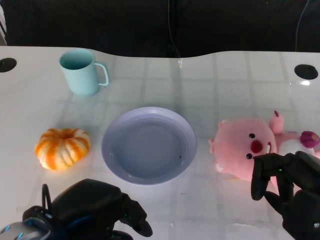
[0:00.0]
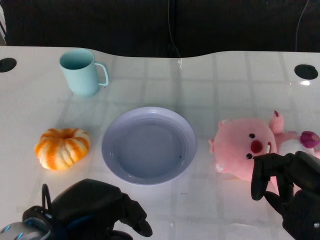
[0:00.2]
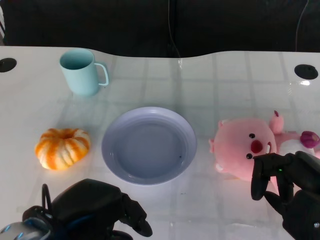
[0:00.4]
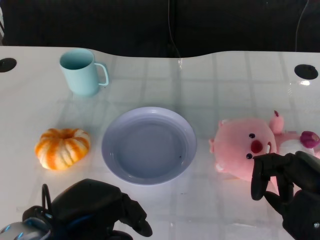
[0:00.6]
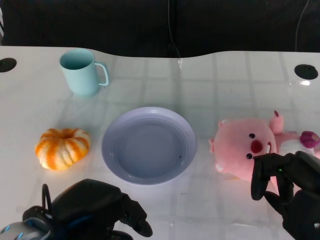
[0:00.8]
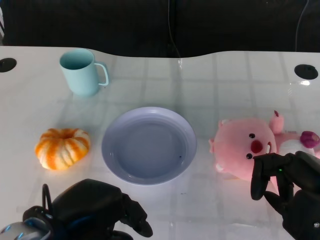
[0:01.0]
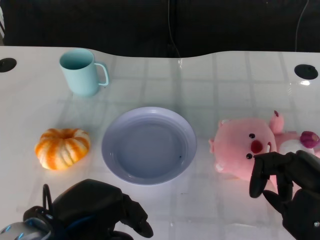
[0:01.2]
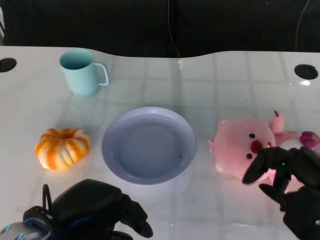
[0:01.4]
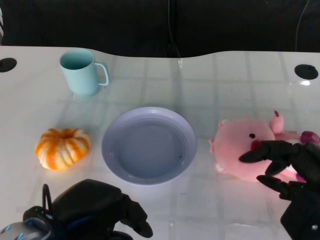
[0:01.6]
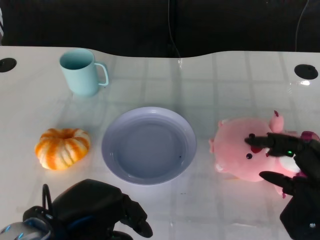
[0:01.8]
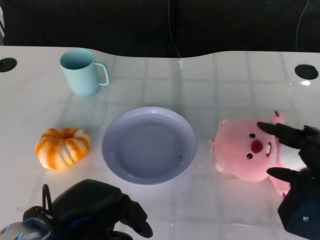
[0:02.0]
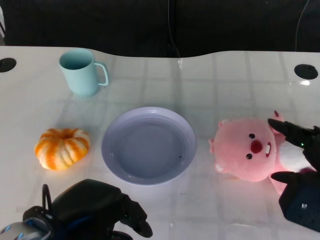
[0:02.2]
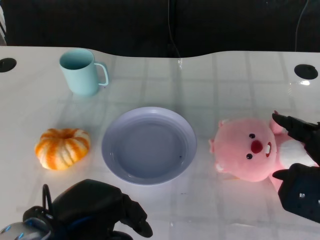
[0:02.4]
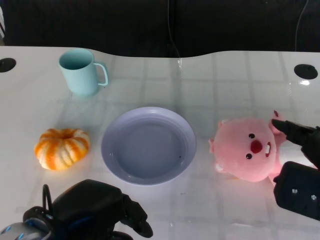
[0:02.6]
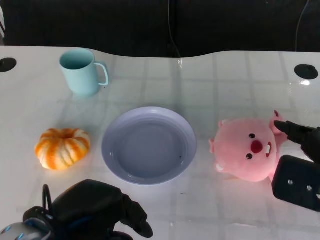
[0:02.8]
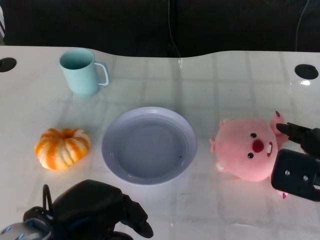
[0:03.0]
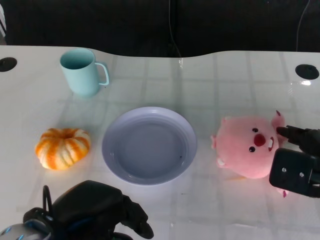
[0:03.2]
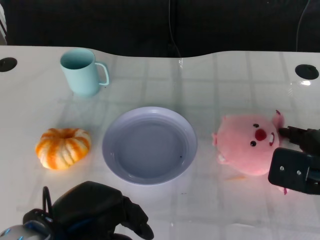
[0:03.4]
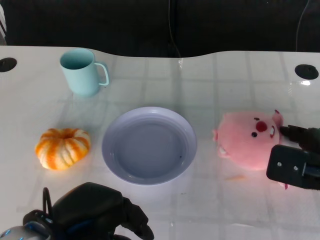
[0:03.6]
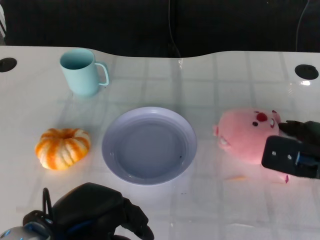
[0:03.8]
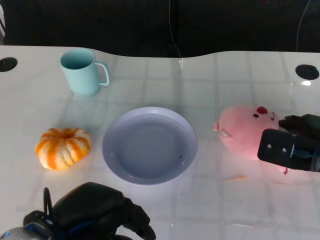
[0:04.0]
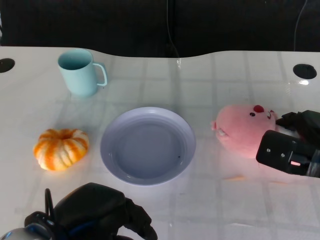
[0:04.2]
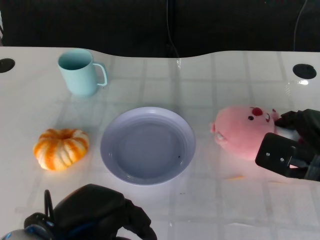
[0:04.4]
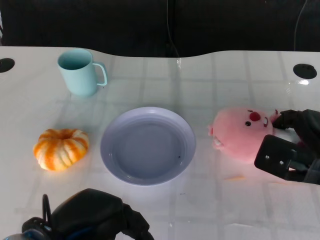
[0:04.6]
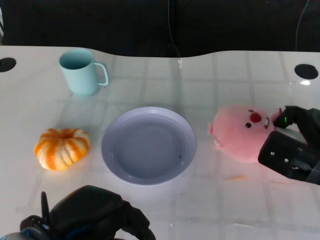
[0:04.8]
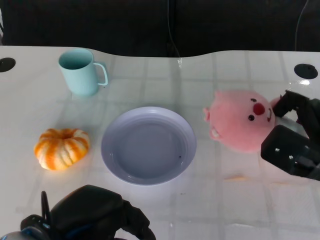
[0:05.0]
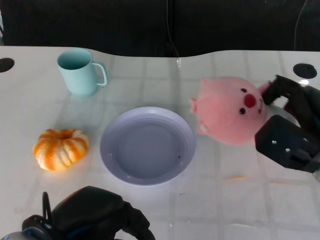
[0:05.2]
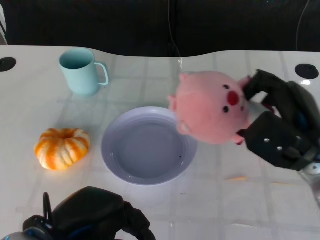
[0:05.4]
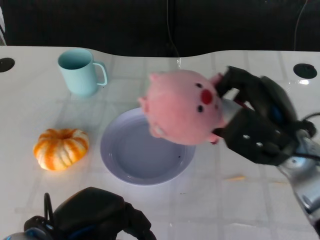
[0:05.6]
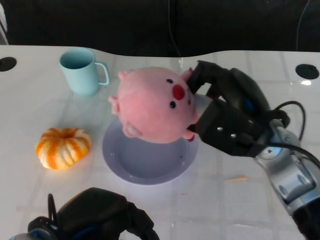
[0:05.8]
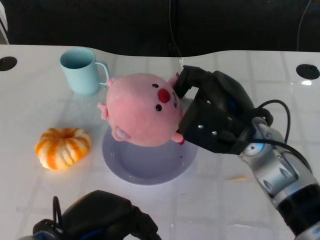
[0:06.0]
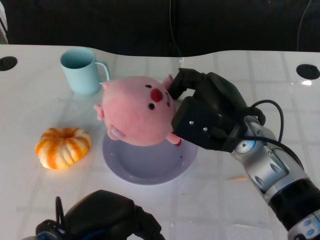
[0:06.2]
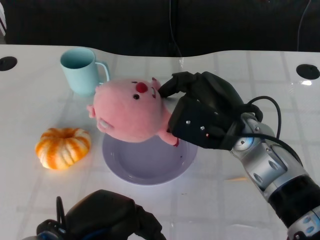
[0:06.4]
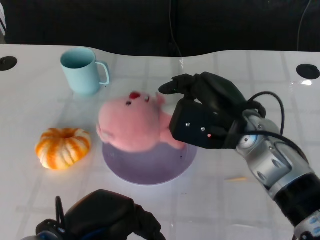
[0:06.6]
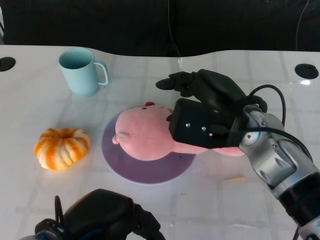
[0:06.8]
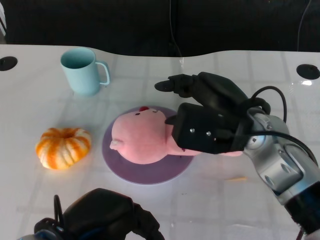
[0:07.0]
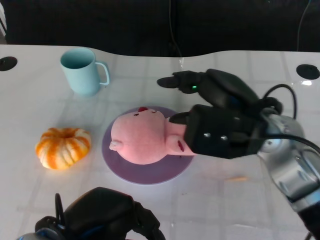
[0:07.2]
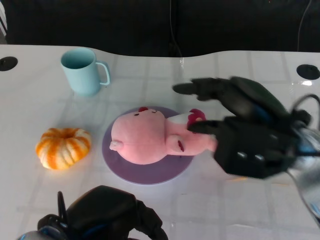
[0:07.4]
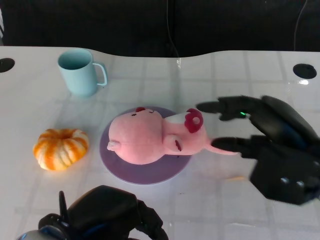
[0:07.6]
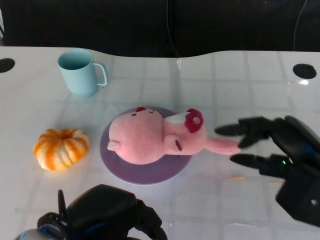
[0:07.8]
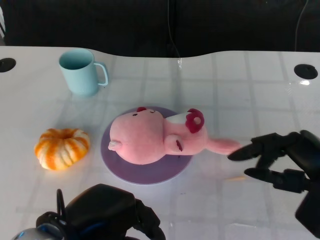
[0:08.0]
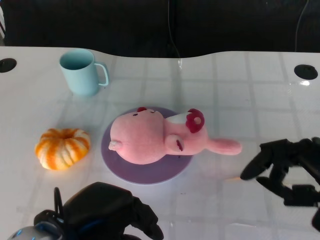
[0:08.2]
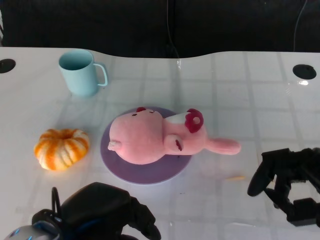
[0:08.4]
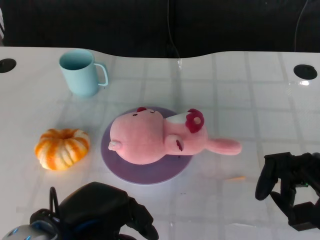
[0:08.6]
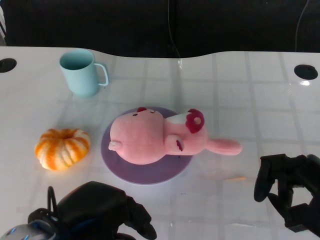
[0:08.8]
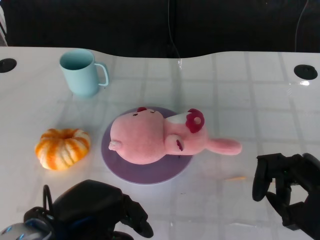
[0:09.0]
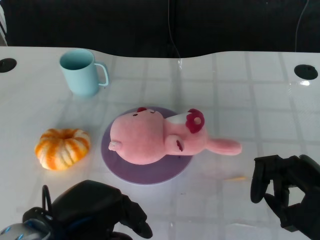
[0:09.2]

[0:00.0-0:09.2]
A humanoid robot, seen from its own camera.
Task of the whole recording: Pick up the doll on the other side of the plate and place it into the plate.
Step, 0:01.2 to 0:05.2: Grasp the pink doll with the right gripper.
Step, 0:05.4 to 0:07.2: Place the pink doll into the plate with the right gripper.
0:03.0 to 0:04.6: The right hand shifts some 10 cm downward and forward.
0:04.6 to 0:06.2: The right hand is displaced to the left and upward by roughly 15 cm.
0:06.2 to 0:07.6: The right hand is displaced to the right and backward by some 10 cm.
0:07.6 to 0:09.2: The right hand goes about 5 cm backward.

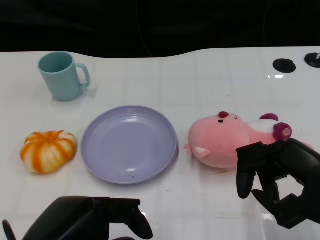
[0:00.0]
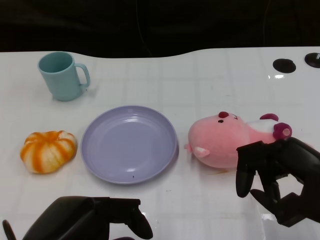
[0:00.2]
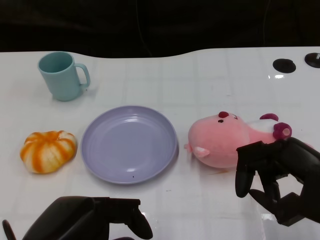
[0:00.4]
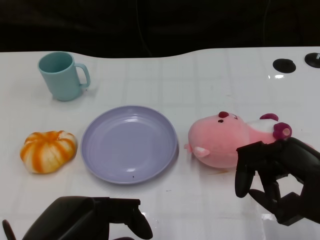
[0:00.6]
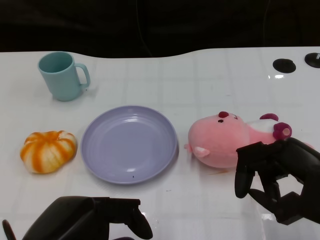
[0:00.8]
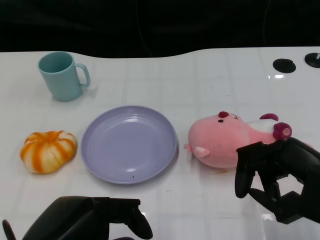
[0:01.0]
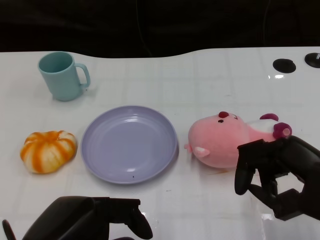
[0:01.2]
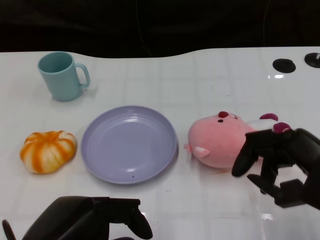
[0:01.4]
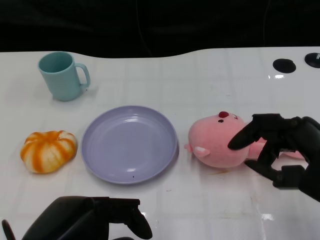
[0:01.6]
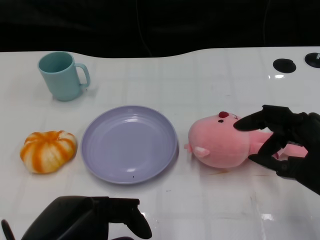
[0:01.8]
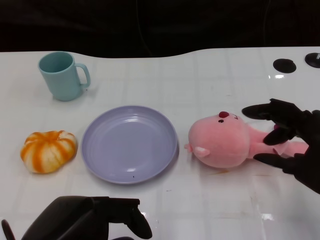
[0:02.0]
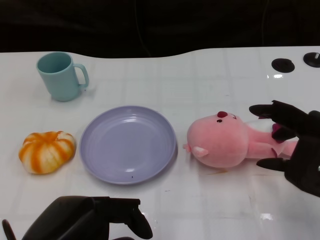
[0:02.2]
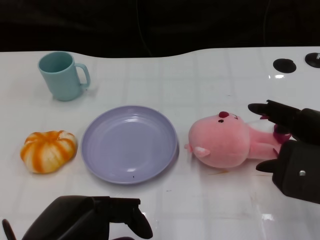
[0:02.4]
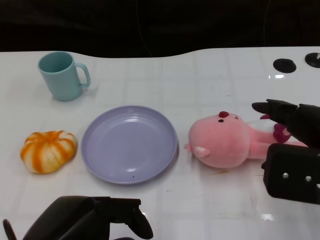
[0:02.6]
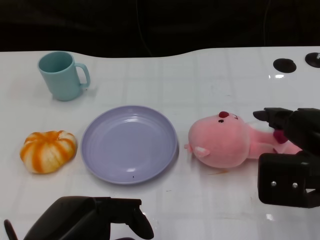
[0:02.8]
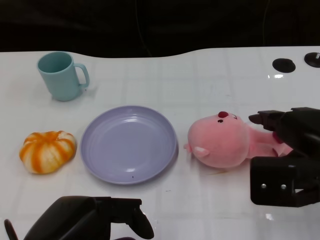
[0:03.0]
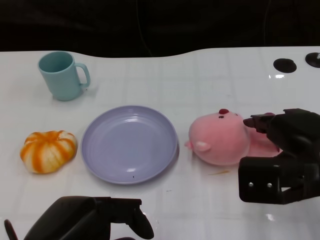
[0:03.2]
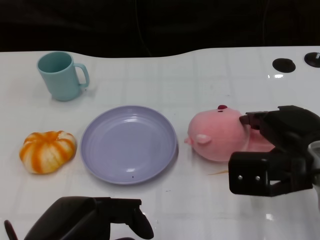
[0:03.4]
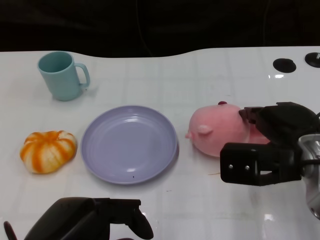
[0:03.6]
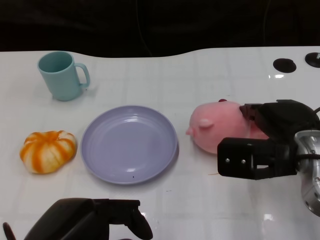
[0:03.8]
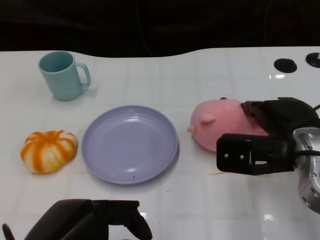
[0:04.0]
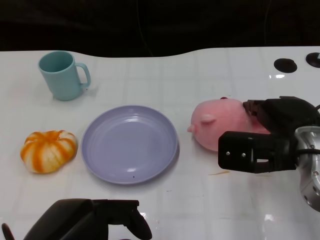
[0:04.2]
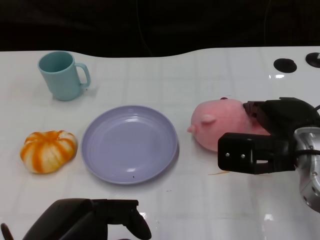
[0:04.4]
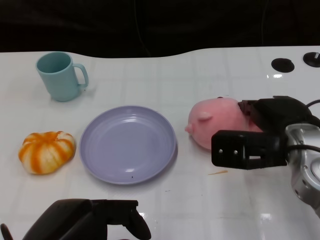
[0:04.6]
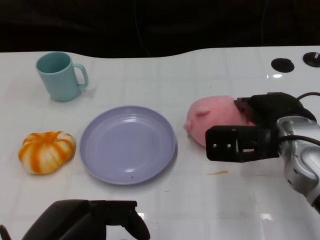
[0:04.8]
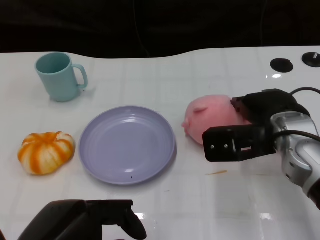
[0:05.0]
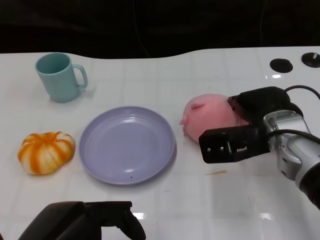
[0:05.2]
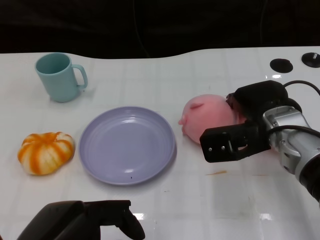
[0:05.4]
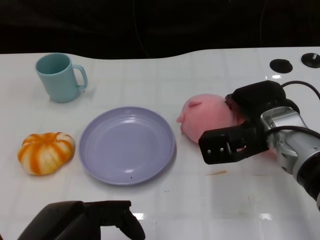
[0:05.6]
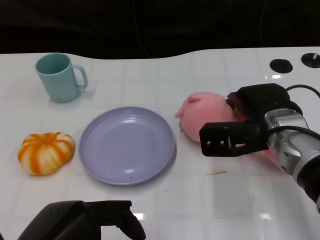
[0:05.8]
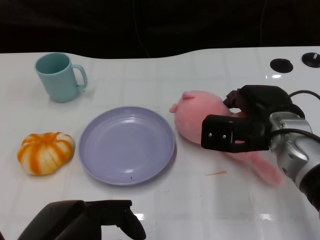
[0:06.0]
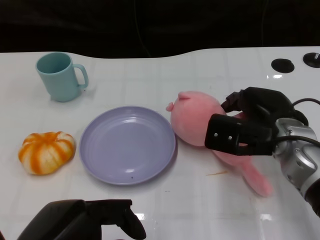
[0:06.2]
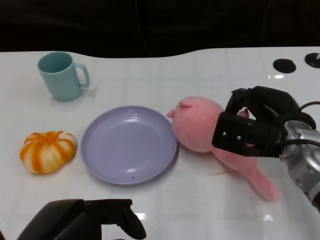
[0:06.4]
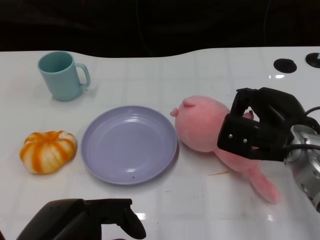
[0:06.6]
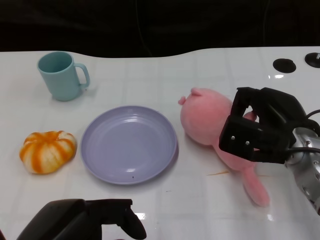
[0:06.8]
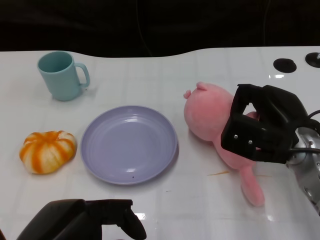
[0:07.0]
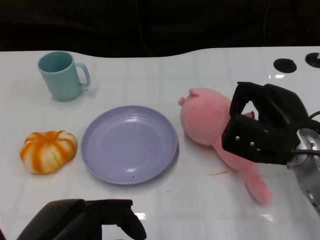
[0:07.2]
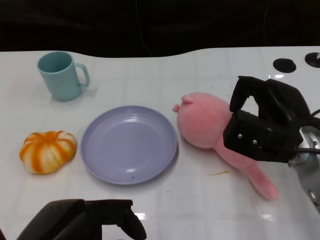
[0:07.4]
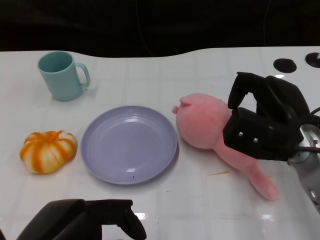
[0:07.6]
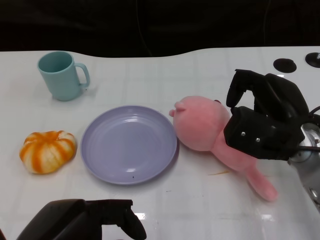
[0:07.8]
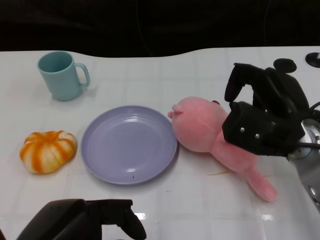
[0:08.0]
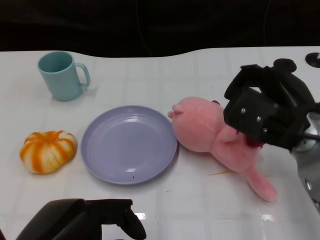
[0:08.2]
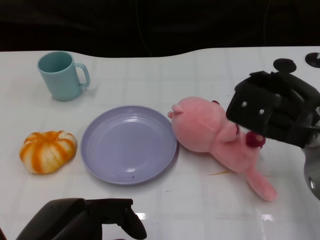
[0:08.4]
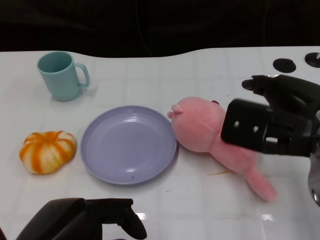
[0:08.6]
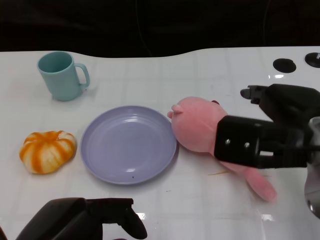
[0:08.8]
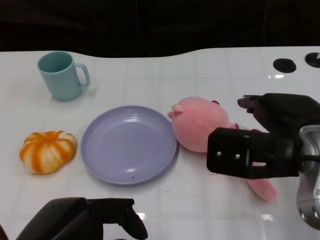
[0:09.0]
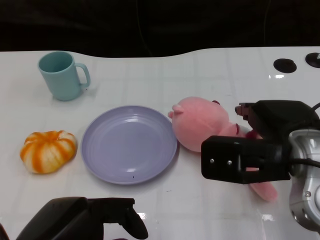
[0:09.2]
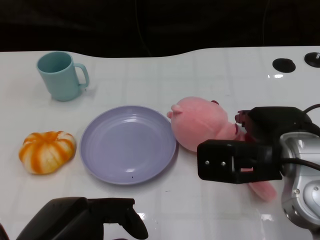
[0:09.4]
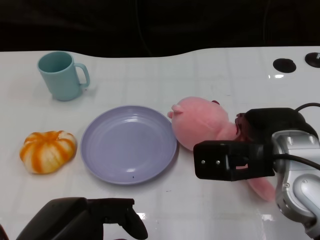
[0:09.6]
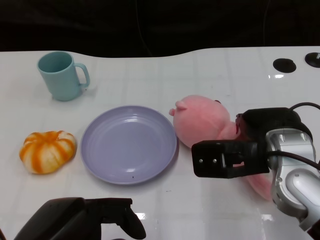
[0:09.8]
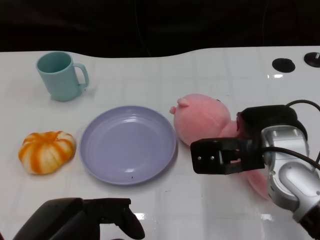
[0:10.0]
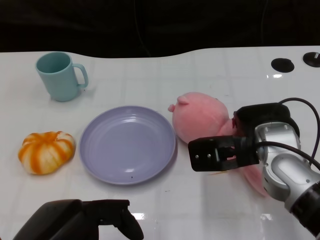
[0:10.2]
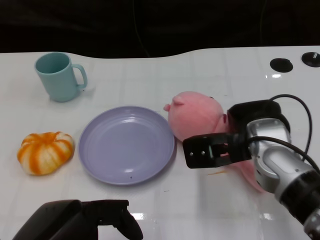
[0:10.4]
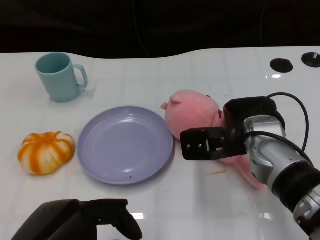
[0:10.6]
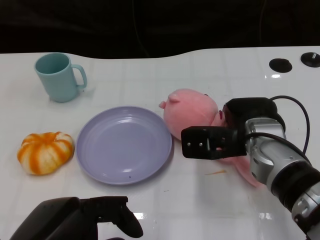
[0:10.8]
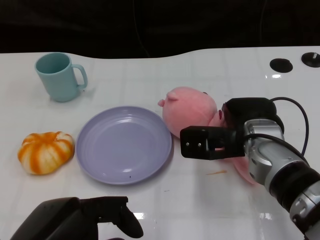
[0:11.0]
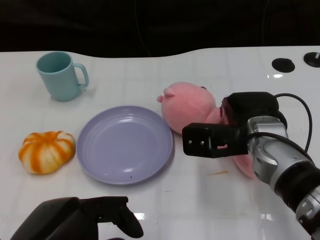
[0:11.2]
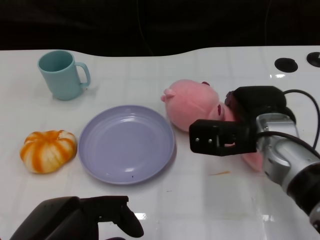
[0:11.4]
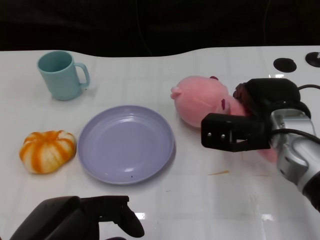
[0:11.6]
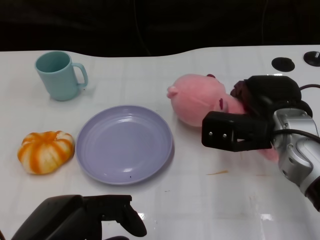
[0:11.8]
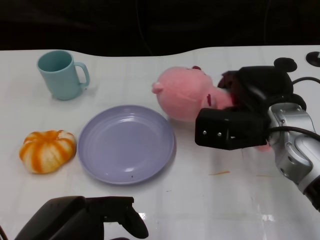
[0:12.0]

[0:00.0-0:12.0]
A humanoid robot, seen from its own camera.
Task of the whole recording: Pick up the doll on the other side of the plate and place it into the plate.
0:03.0 to 0:04.4: The right hand shifts approximately 5 cm forward.
0:04.4 to 0:06.0: The right hand shifts by approximately 5 cm.
0:07.6 to 0:09.0: The right hand shifts some 10 cm upward and backward.
0:09.0 to 0:10.4: The right hand goes about 10 cm downward and forward.

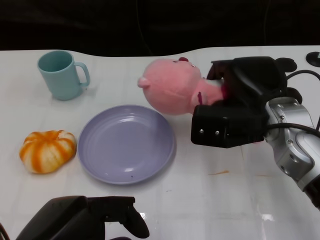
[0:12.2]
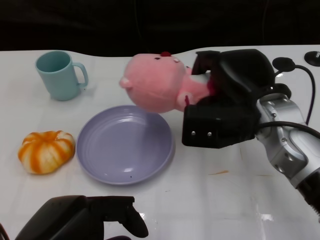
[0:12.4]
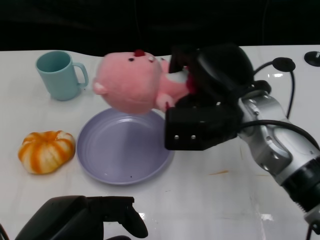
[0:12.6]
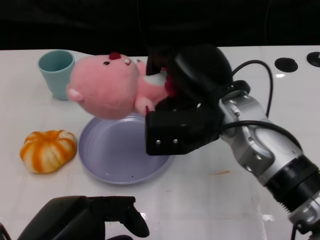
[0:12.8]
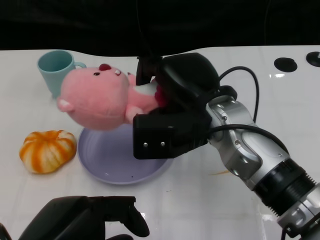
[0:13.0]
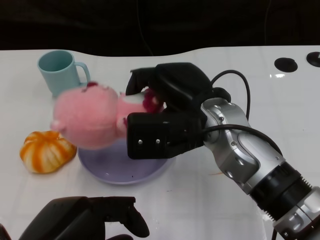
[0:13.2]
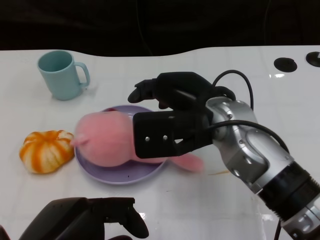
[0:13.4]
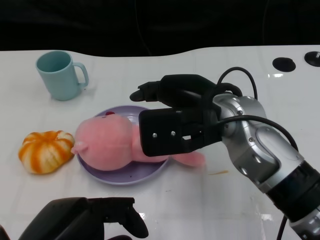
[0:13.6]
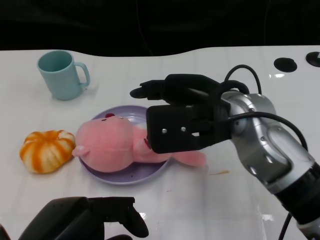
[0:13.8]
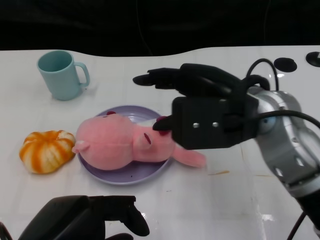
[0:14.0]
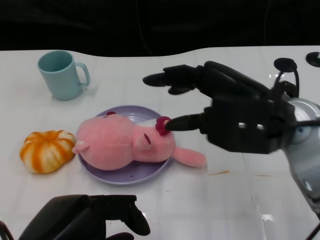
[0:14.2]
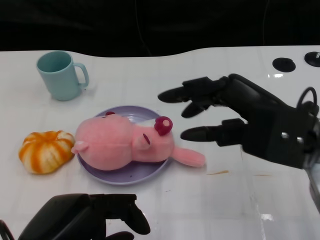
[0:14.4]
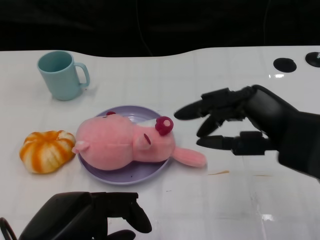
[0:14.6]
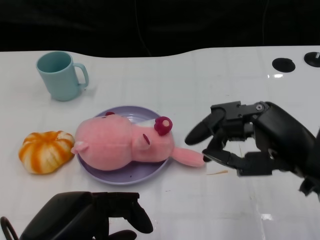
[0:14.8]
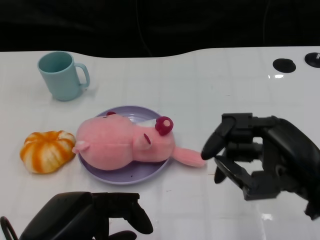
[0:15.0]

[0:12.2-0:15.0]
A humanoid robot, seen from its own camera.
Task of the whole recording: Pick up the doll on the other side of the plate and place it into the plate.
Step, 0:12.4 to 0:13.8: Place the pink doll into the plate with the right gripper.
0:12.2 to 0:13.6: The right hand moves to the left, approximately 5 cm.
0:13.6 to 0:15.0: The right hand goes about 15 cm to the right and backward.
